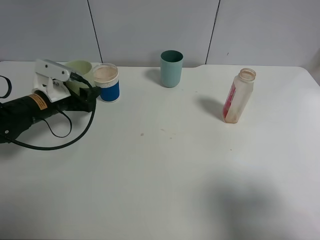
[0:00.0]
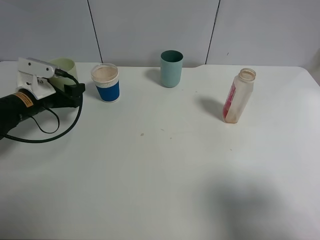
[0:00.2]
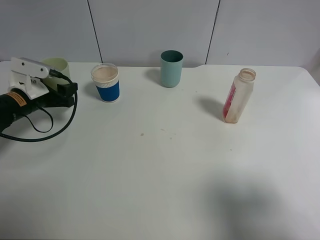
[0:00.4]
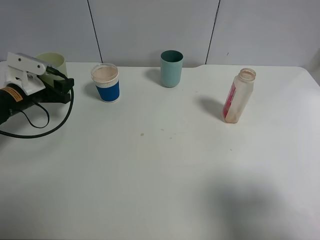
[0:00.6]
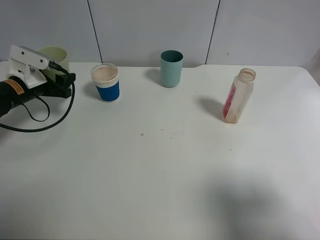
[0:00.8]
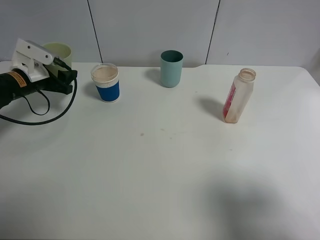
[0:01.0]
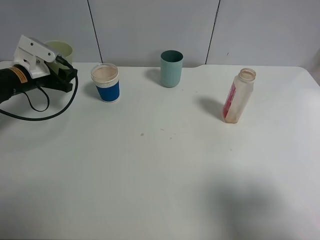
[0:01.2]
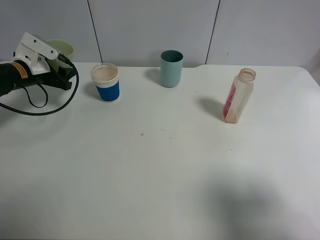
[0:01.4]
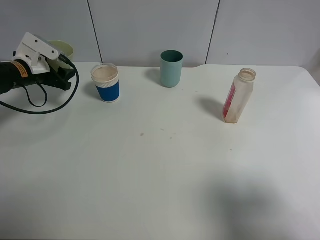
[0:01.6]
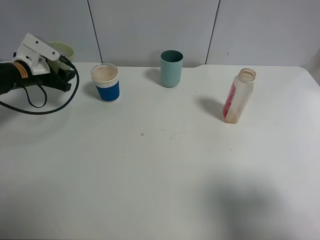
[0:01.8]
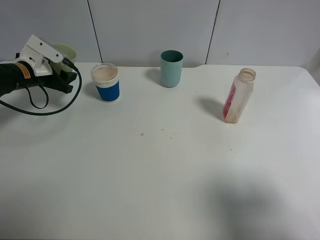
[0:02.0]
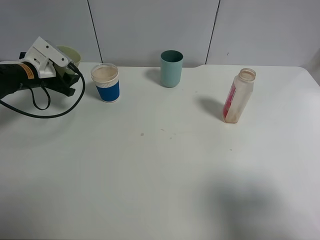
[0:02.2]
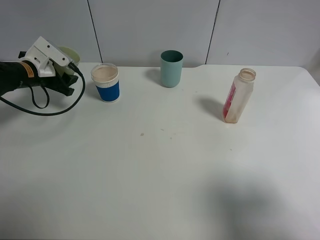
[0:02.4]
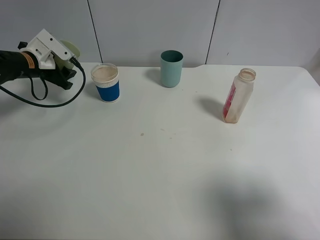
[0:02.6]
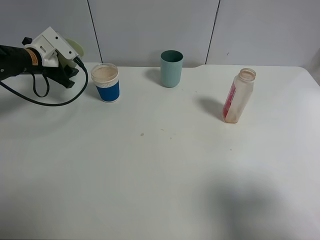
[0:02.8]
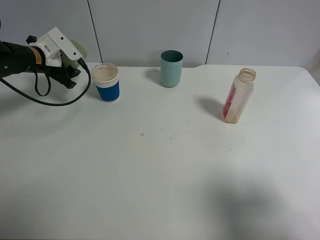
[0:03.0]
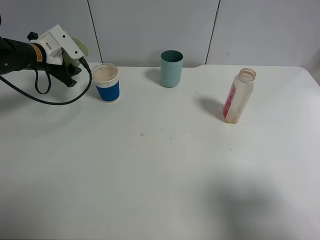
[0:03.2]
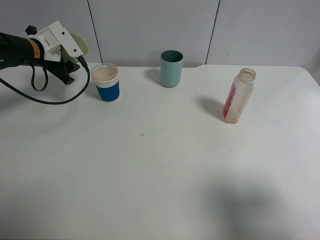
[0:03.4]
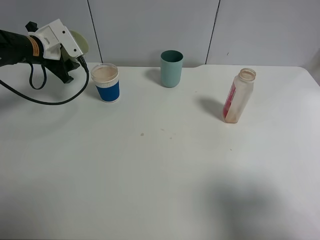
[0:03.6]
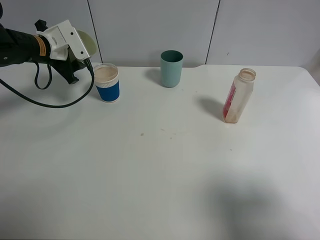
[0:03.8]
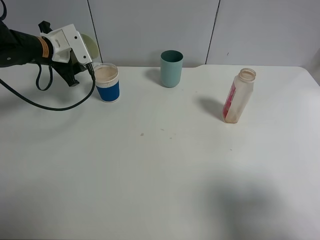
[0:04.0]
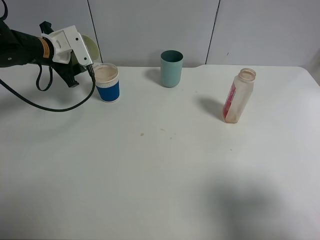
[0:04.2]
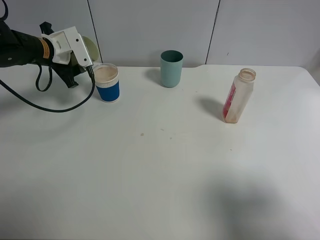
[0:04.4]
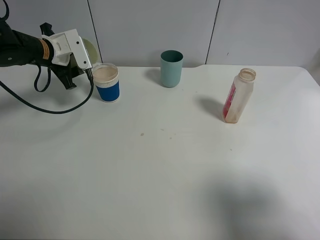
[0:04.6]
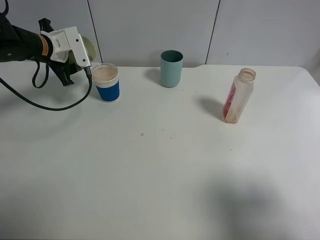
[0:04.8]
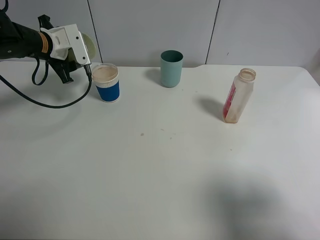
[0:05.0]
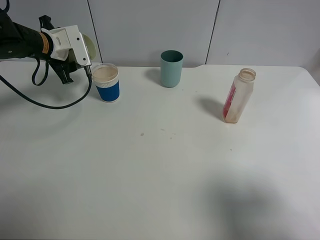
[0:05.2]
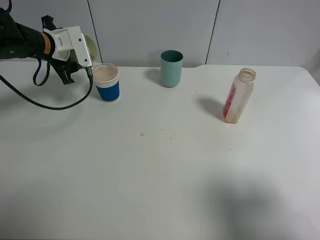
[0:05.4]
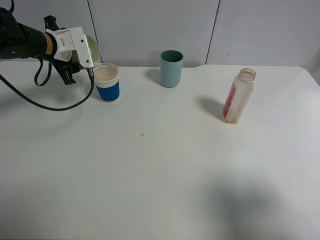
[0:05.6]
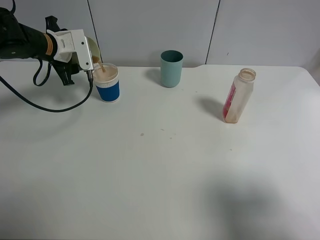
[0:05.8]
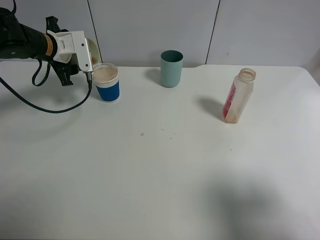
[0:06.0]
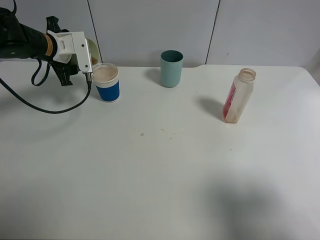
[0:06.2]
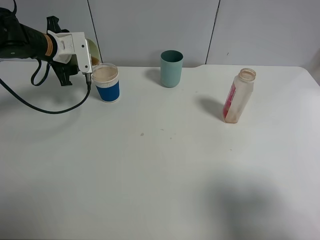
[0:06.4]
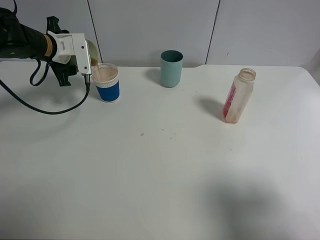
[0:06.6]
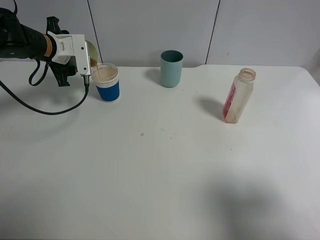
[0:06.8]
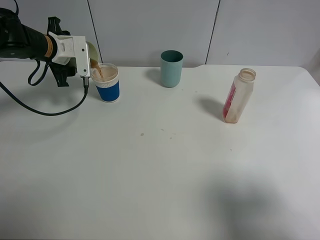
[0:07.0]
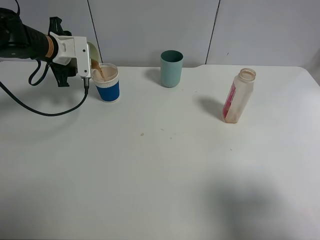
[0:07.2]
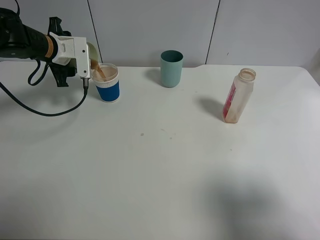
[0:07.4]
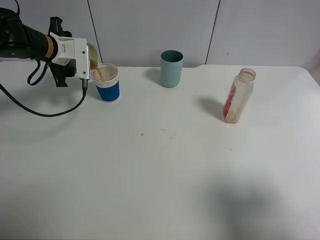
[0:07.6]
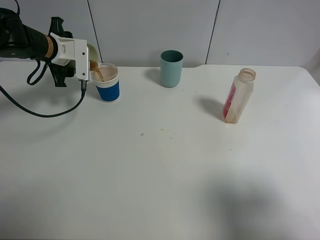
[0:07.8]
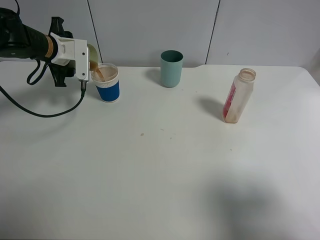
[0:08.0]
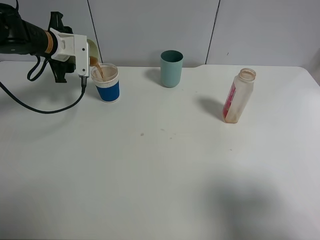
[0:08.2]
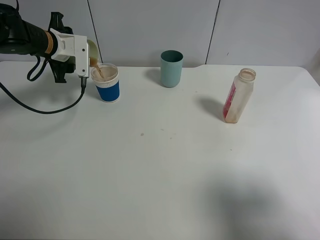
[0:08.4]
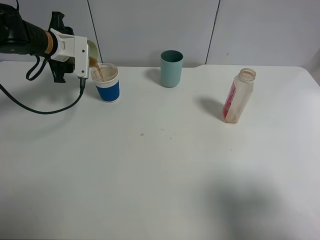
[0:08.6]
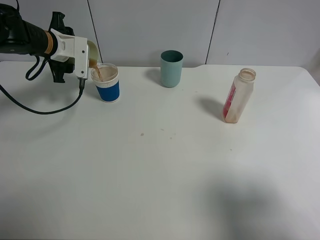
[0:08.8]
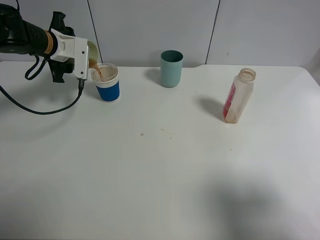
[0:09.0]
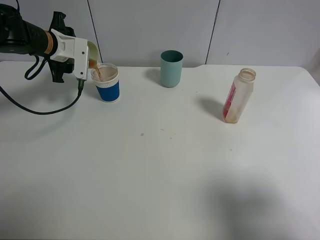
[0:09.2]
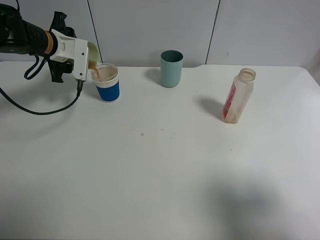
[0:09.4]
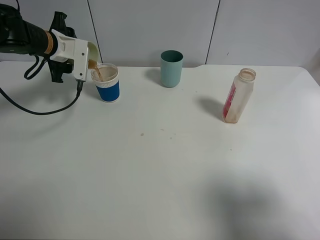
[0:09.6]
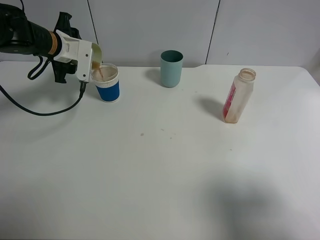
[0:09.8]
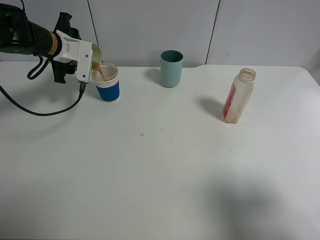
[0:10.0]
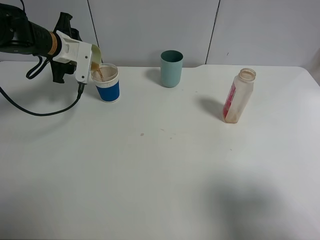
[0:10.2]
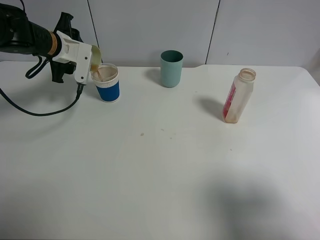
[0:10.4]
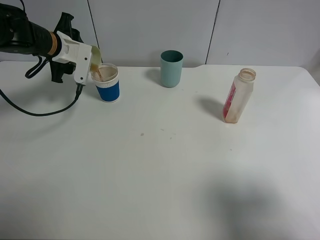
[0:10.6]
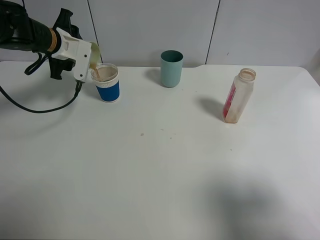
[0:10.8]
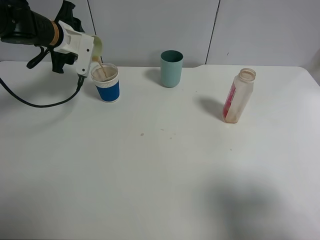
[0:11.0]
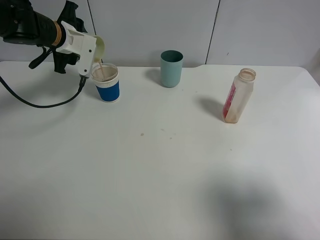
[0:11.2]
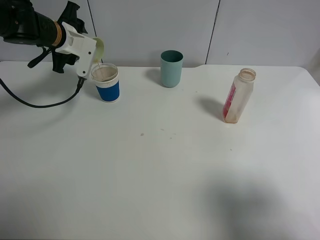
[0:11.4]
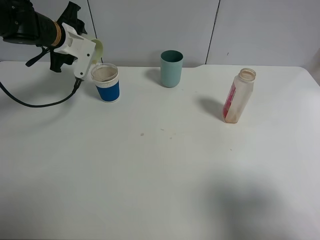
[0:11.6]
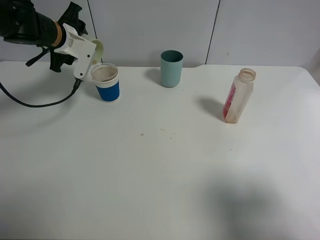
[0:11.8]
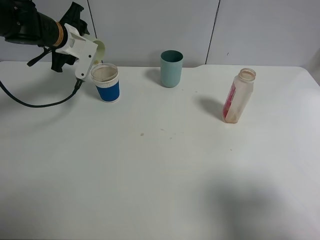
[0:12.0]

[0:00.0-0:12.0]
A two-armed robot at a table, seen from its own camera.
Task of the whole recording: use a clamp to hold the bottle of the drink, pour the beverage into a random cup, then clamp the cup containing the drink and pour the drink into another random cup.
0:00.0 to 0:01.6: The left gripper shifts some 10 cm forward and to the left.
0:03.0 to 0:04.4: There are only small adjustments of the grippers.
0:04.4 to 0:06.0: The grippers move only a little.
0:06.0 to 0:09.0: The grippers move only a little.
0:09.0 to 0:10.4: The grippers make only small movements.
0:10.4 to 0:12.0: There are only small adjustments of the grippers.

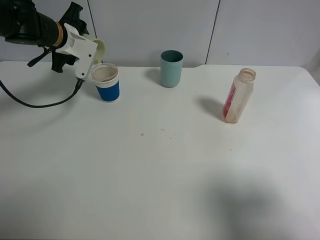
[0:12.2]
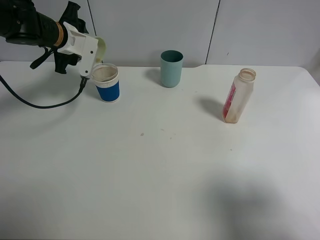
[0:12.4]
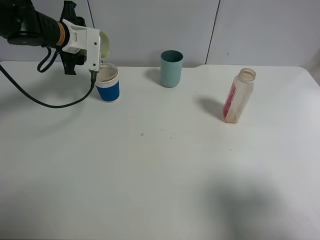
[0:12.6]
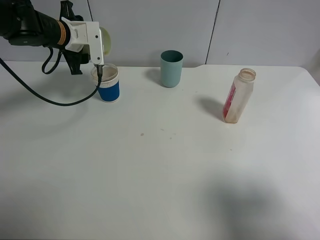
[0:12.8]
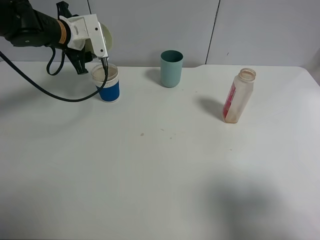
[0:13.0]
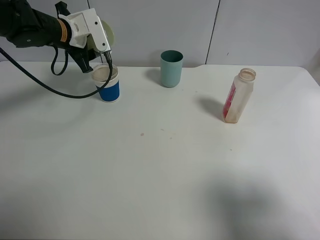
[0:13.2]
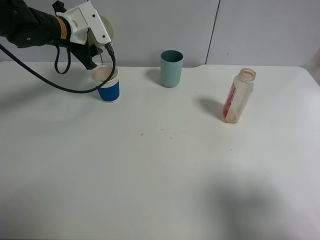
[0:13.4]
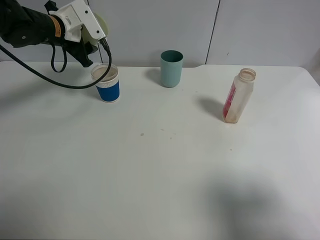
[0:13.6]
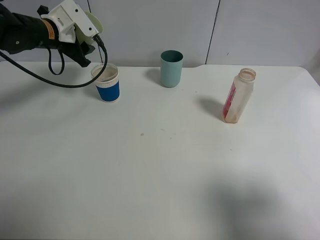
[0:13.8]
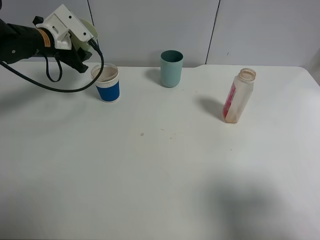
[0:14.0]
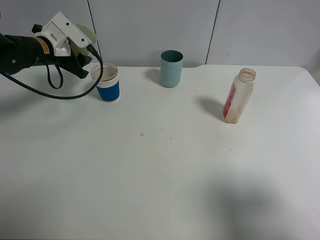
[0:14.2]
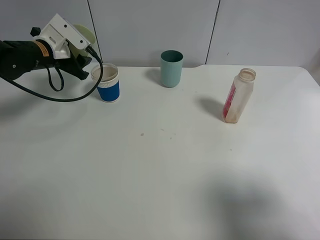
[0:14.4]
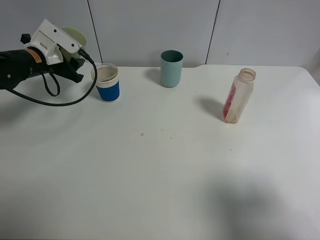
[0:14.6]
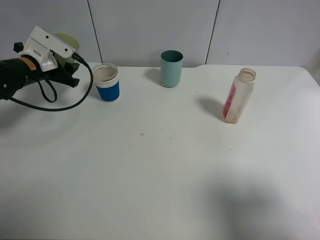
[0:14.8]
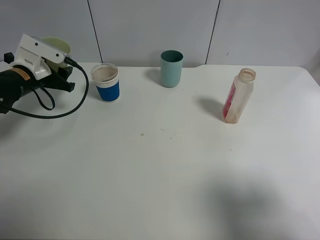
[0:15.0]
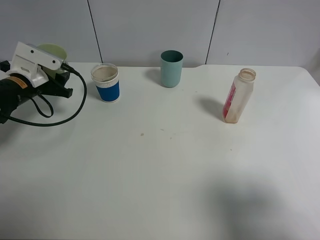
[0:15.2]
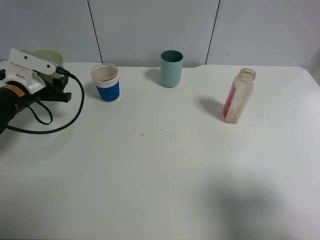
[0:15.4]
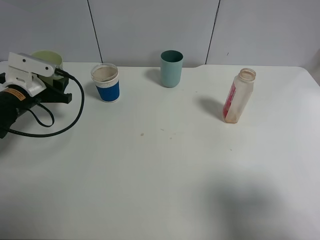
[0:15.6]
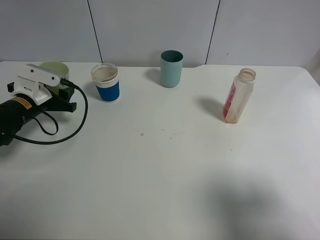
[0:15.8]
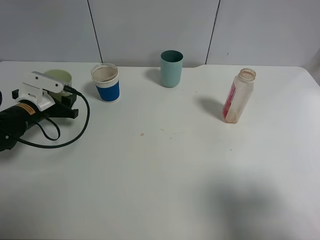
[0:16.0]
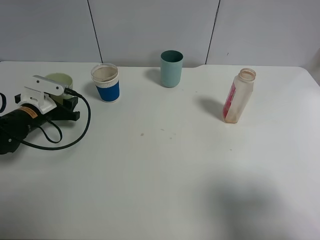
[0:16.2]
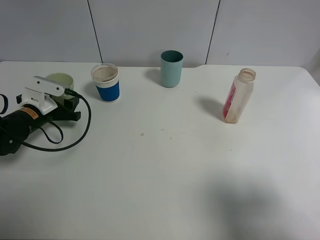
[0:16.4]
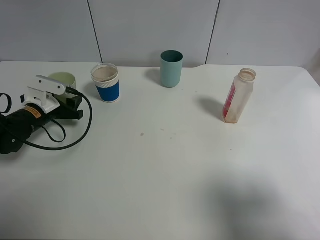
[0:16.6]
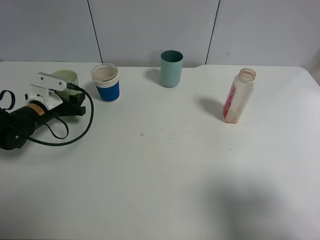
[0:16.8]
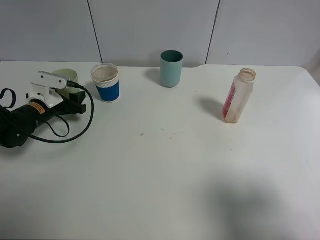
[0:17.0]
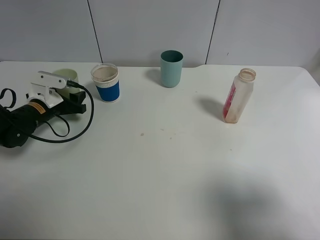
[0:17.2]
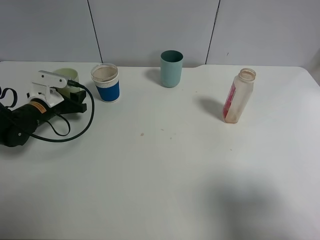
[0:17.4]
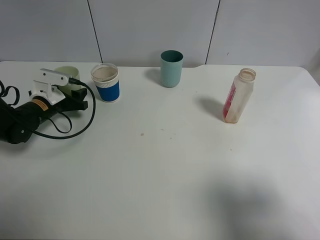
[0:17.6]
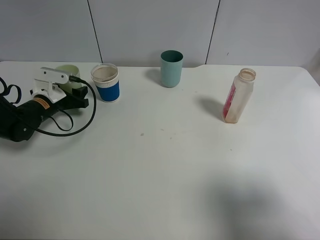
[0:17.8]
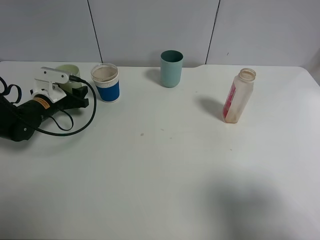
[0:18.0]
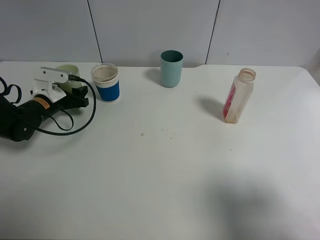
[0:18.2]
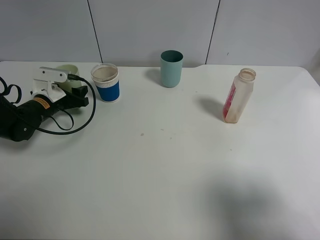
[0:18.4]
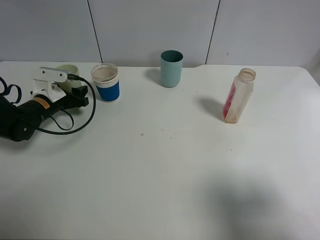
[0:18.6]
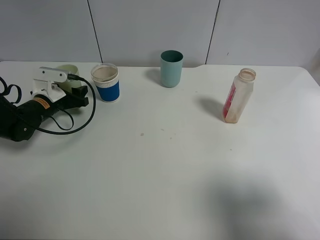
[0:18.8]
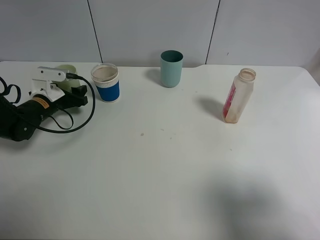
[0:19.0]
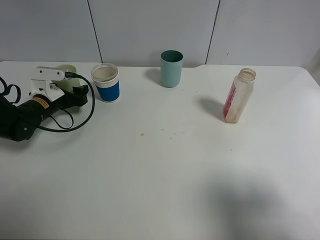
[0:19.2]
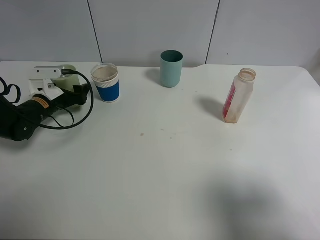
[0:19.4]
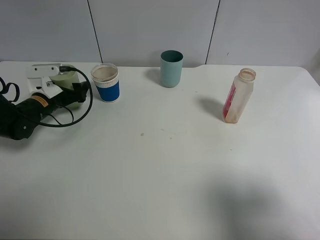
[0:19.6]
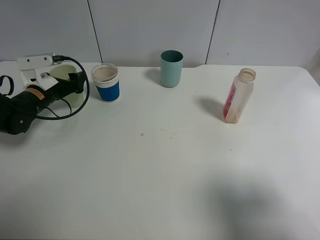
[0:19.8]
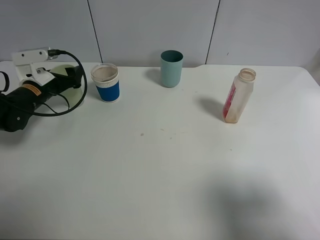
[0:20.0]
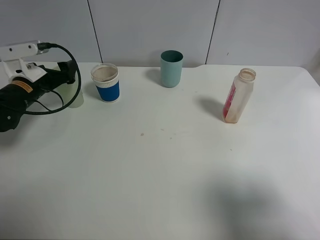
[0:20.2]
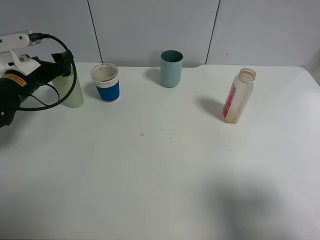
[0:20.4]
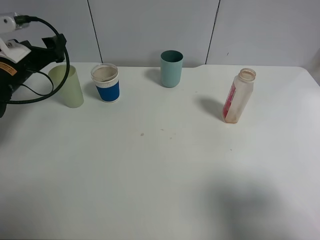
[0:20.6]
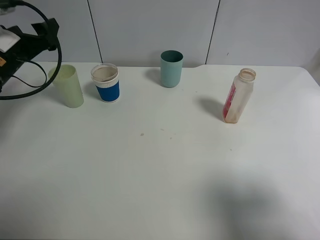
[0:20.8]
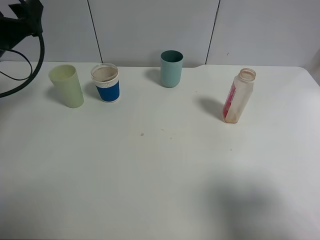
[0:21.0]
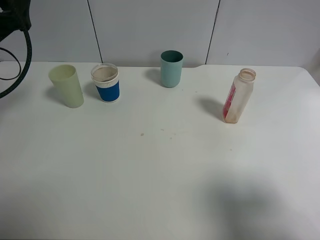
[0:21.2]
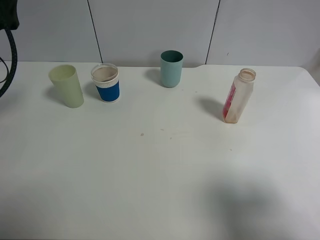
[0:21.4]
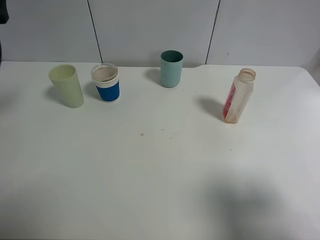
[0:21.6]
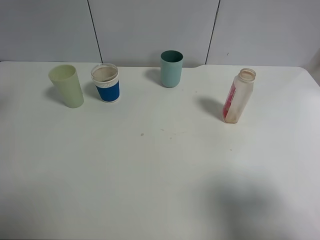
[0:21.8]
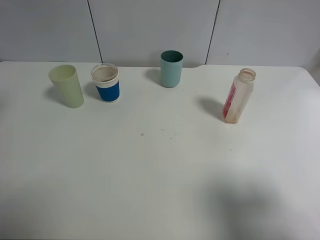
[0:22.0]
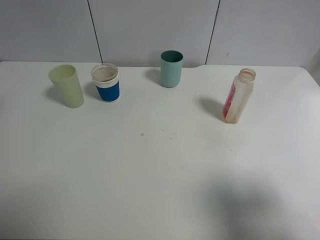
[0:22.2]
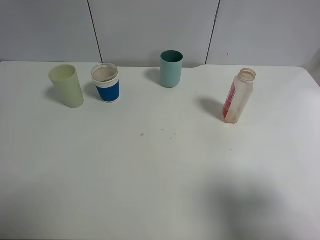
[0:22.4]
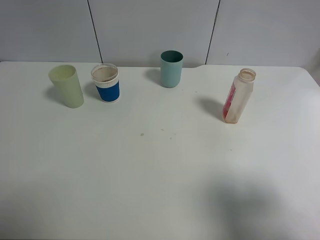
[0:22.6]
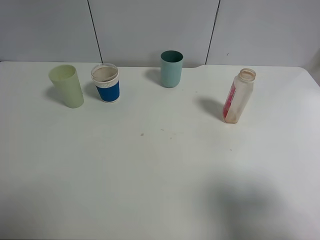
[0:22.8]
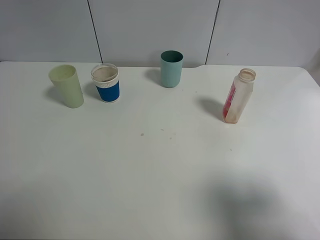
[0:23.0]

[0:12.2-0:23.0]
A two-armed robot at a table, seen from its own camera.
Task of the whole recording: use a clamp to hold the bottle of the drink, pour the beverage into a random cup, then clamp the cup containing the drink and pour the drink into another random cup.
Step, 0:13.0 to 0:19.6: Place the green plastic cup on the table with left gripper.
0:13.8 to 0:15.2: The left gripper is displaced backward, downward and to the left by roughly 15 cm.
0:15.2 to 0:16.8: The left gripper is displaced downward by roughly 5 cm.
0:16.8 to 0:18.4: The grippers stay close to where they were, moving slightly.
0:18.4 to 0:20.0: The left gripper opens.
0:20.0 to 0:21.4: The left gripper travels upward and backward by approximately 20 cm.
0:21.4 to 0:23.0: The left gripper moves backward, roughly 15 cm.
